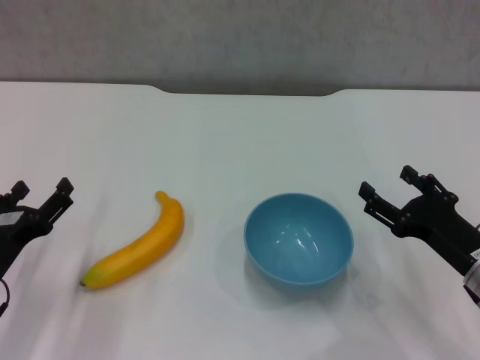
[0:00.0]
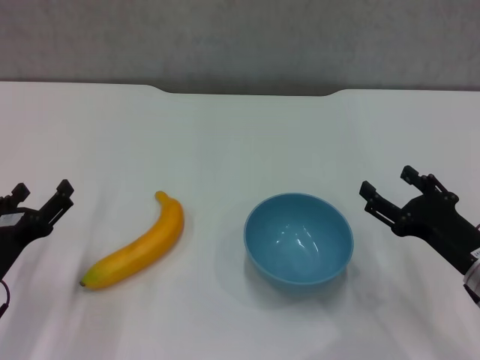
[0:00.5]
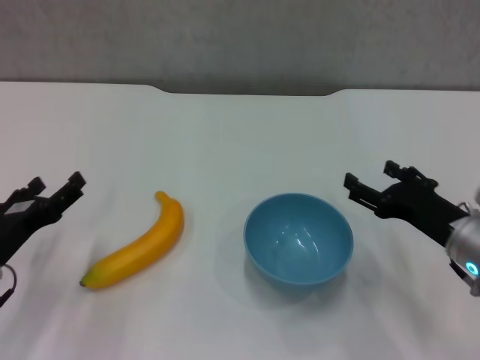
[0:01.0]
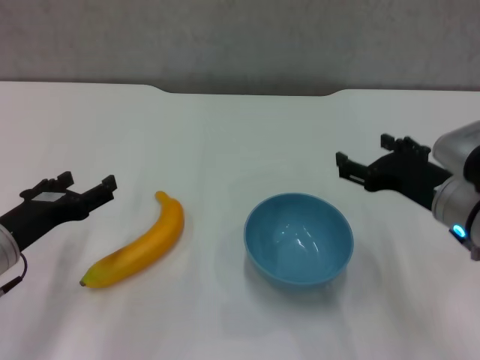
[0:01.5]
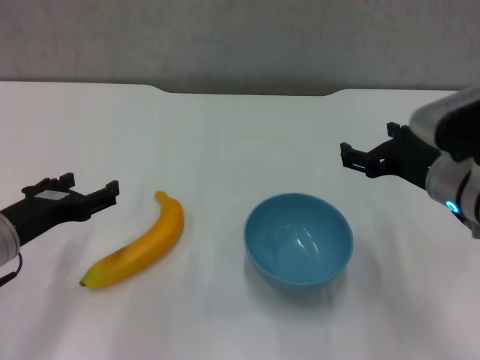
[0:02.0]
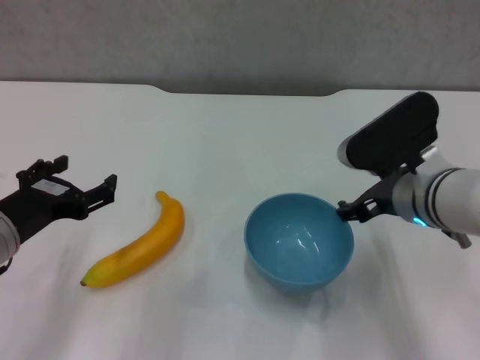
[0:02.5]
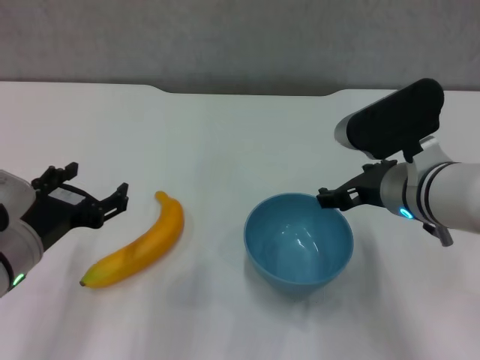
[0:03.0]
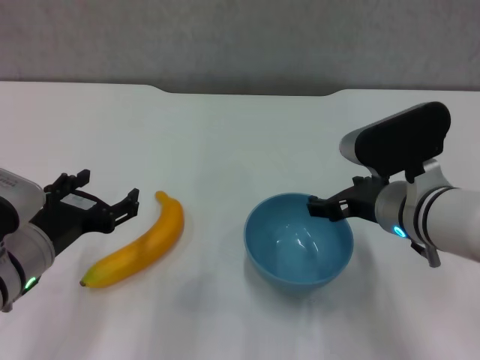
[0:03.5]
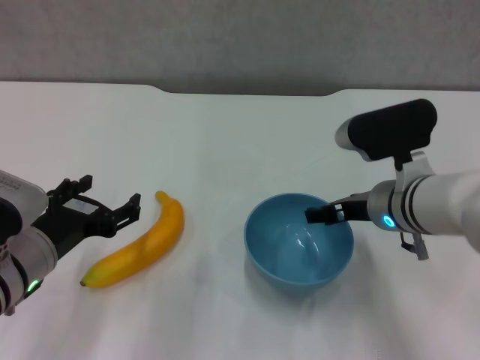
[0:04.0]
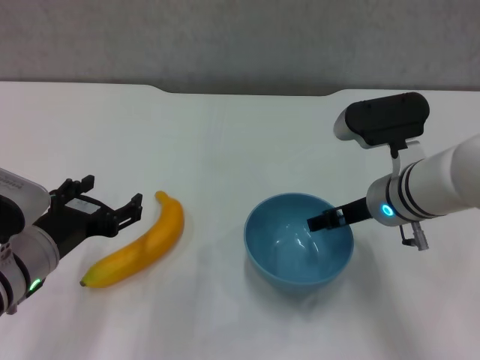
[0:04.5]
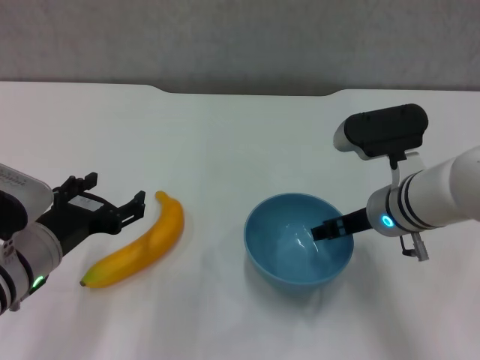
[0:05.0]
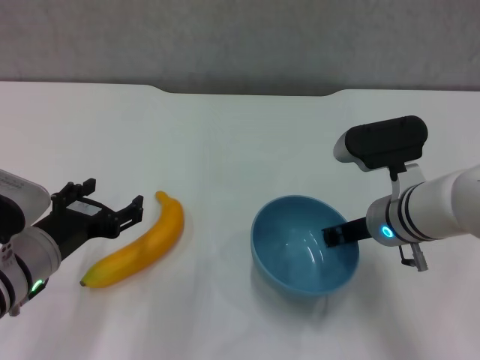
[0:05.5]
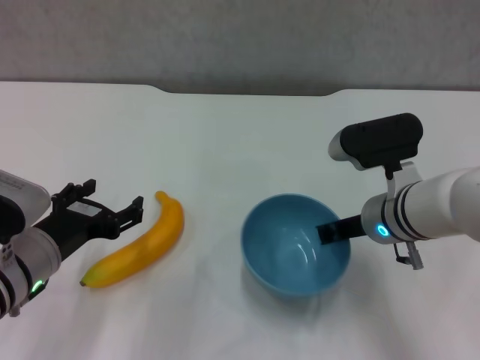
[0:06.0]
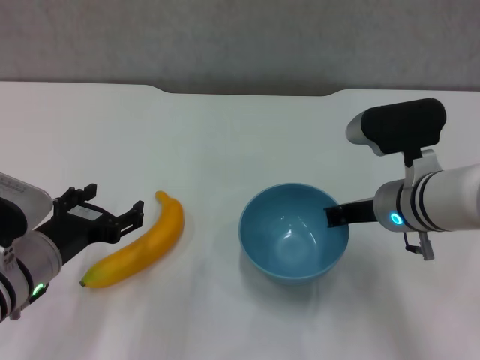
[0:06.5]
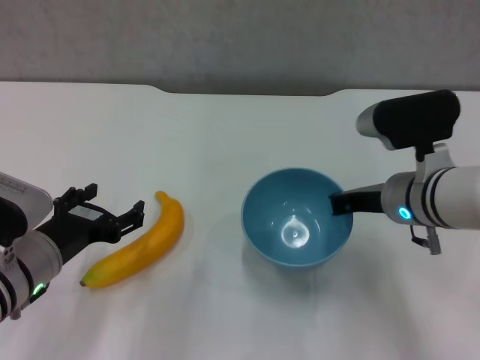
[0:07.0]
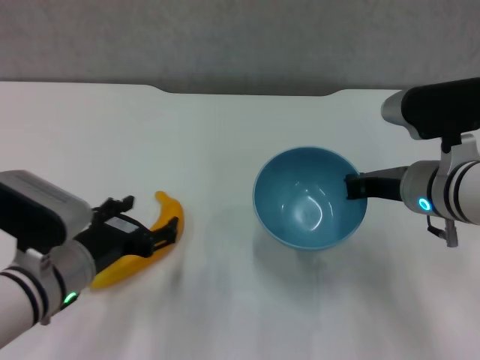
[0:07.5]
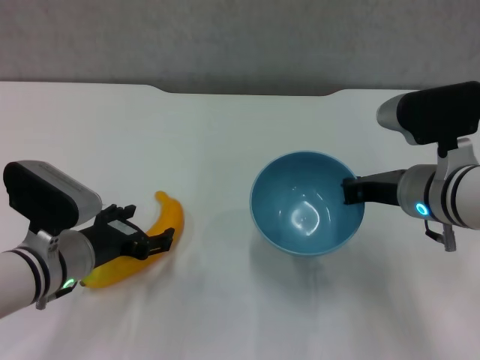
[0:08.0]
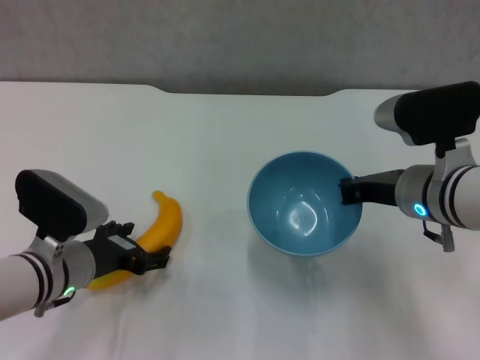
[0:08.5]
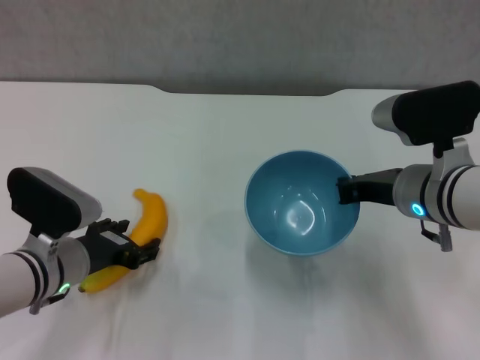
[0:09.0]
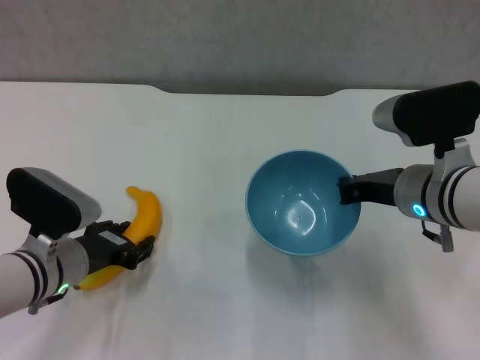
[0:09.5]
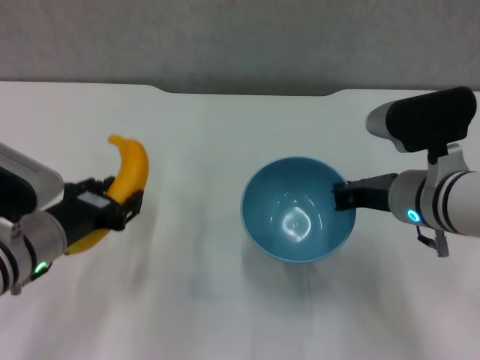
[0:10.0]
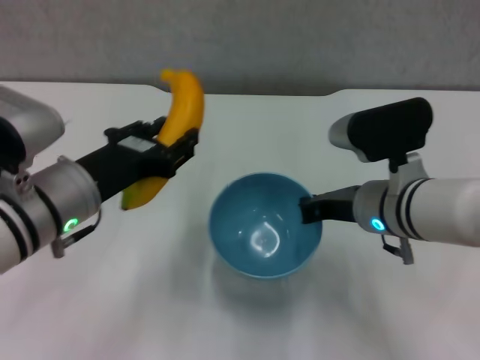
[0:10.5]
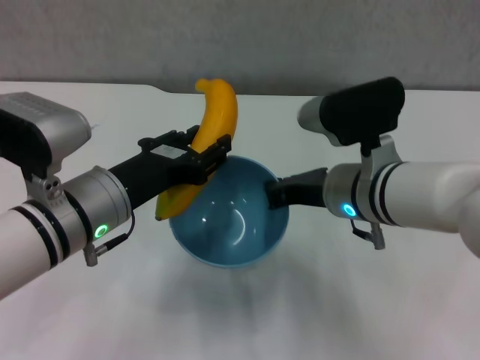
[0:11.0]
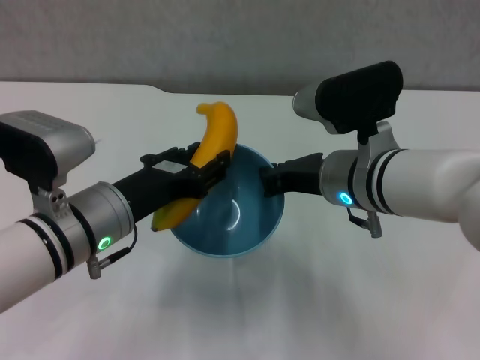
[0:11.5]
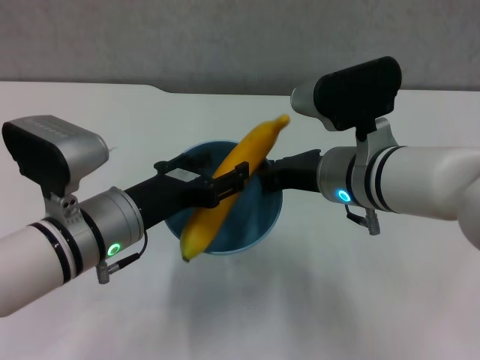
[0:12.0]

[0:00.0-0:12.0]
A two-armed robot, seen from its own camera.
Step, 0:00.0 to 0:06.0: Grasp the blue bowl with right gripper.
Step, 0:06.5 to 0:07.0: Lift the blue bowl with right gripper.
Step, 0:07.5 to 0:09.0: Grasp the banana with left gripper.
0:00.0 to 0:02.0: The left gripper travels upward by approximately 5 cm, while the right gripper moves upward, forward and to the left, roughly 10 cm.
0:02.0 to 0:04.0: The right gripper shifts by about 5 cm.
0:04.0 to 0:06.0: The right gripper closes up.
0:06.0 to 0:08.0: The right gripper moves about 5 cm.
0:08.0 to 0:10.0: The left gripper closes.
0:10.0 to 0:12.0: The right gripper travels to the left by roughly 5 cm; the left gripper goes roughly 5 cm to the right.

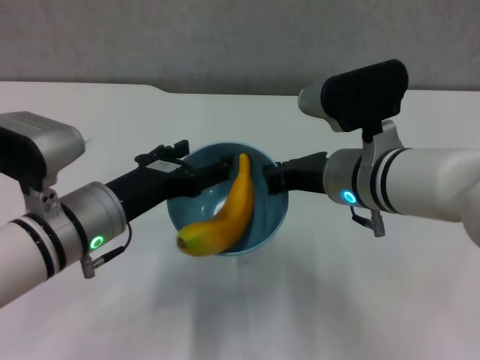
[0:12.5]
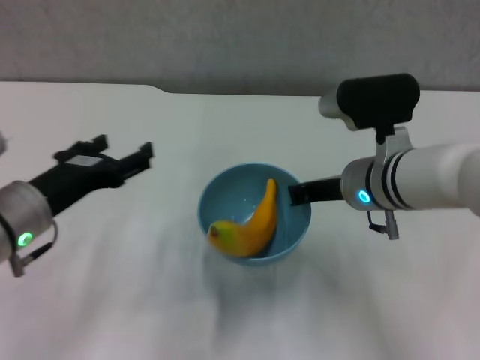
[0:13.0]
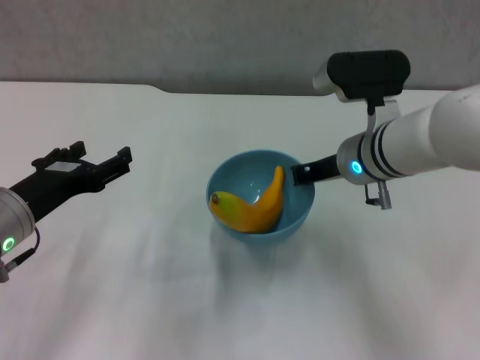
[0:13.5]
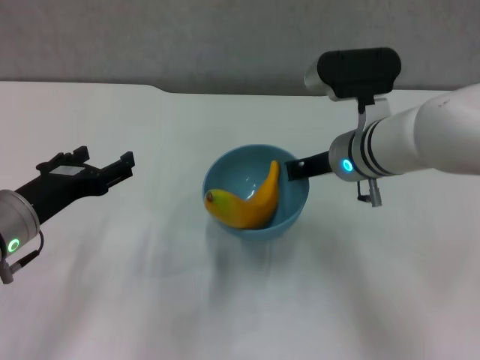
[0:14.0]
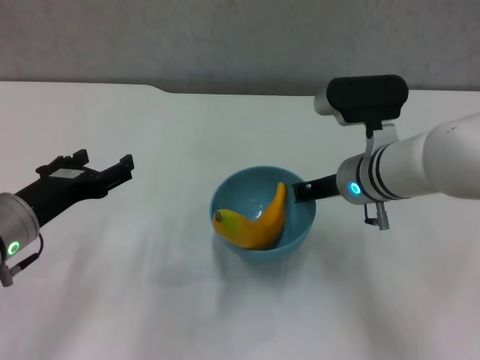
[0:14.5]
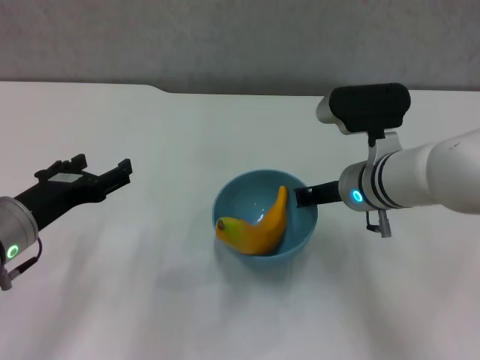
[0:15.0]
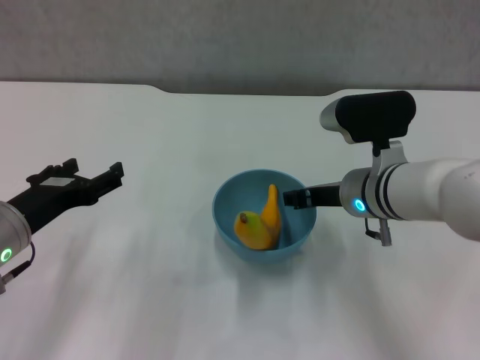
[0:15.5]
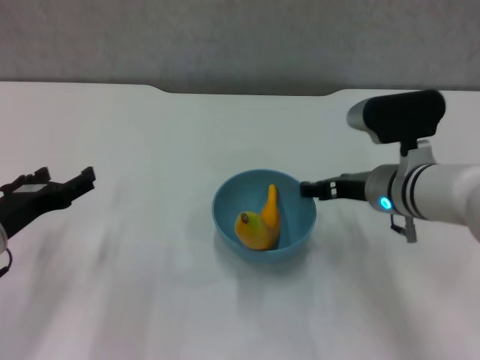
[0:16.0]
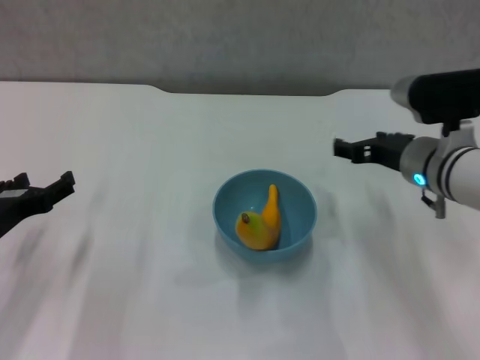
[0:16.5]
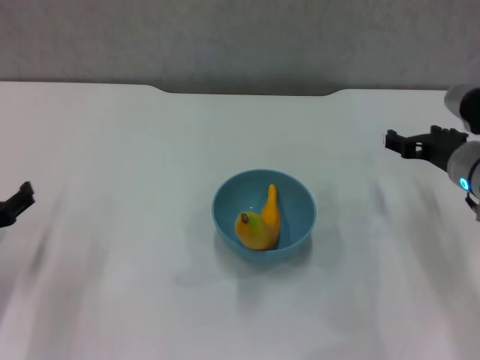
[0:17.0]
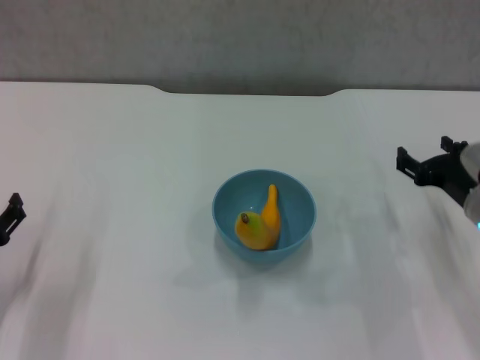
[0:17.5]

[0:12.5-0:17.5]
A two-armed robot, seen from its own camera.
Step, 0:12.5 to 0:15.5: Place the bowl on the table with right gripper.
0:12.5 to 0:15.0: The right gripper changes place by approximately 5 cm. Meanwhile the left gripper is displaced to the left by about 10 cm.
0:15.0 to 0:17.5: The left gripper shifts some 10 cm downward and to the left; the right gripper heads to the right, covering some 15 cm, and opens its fingers.

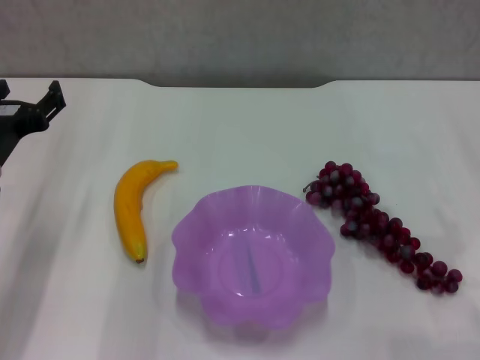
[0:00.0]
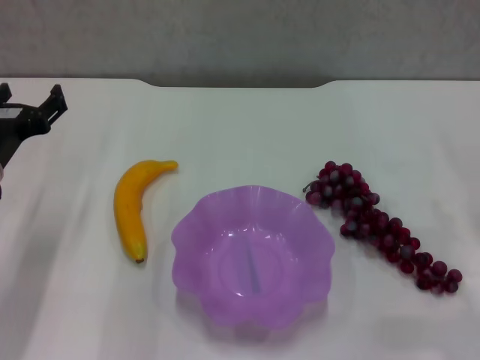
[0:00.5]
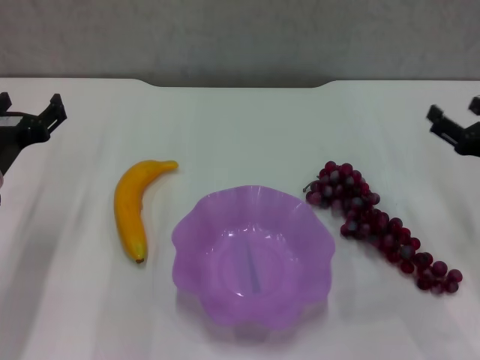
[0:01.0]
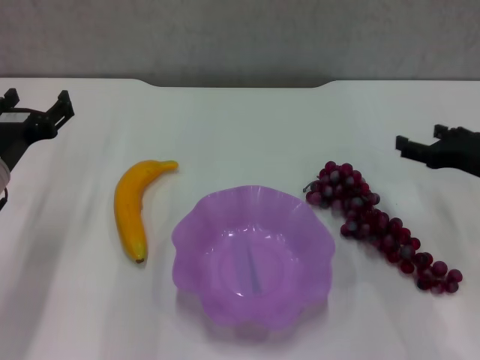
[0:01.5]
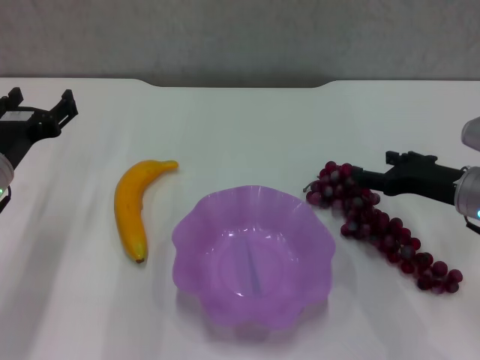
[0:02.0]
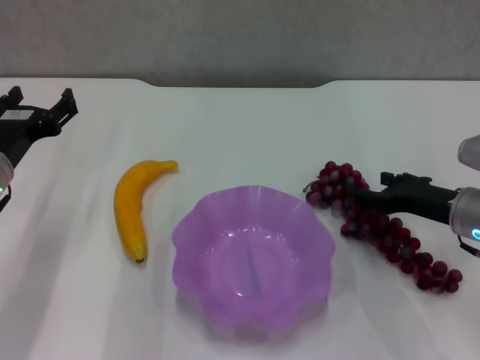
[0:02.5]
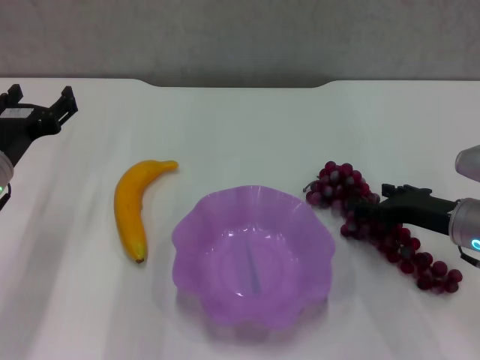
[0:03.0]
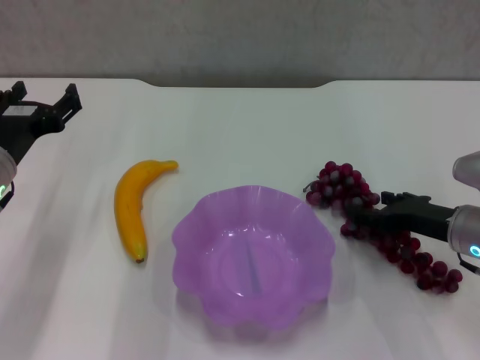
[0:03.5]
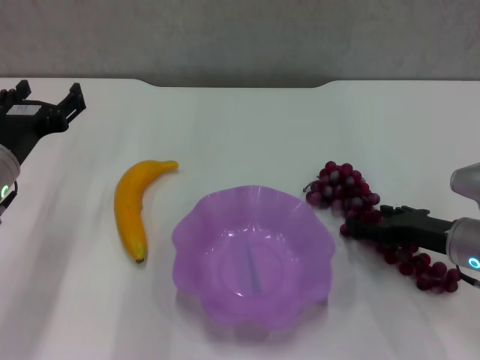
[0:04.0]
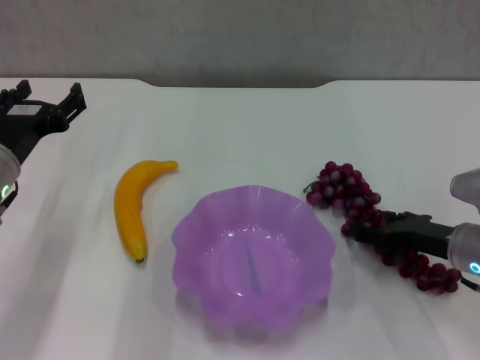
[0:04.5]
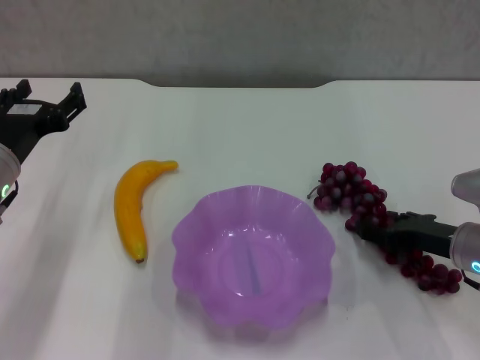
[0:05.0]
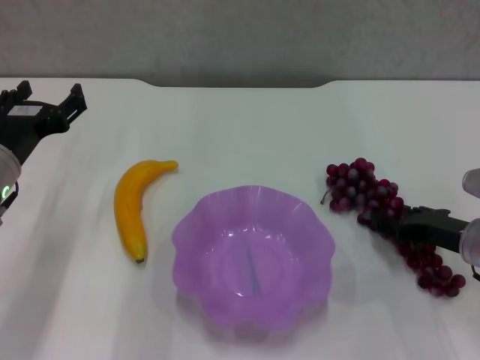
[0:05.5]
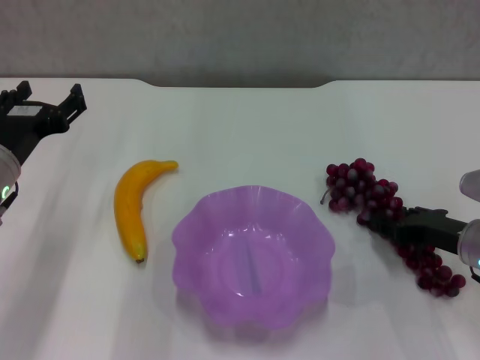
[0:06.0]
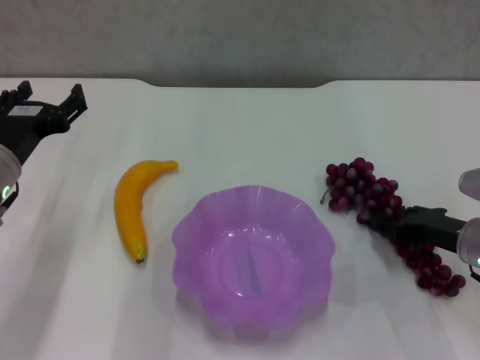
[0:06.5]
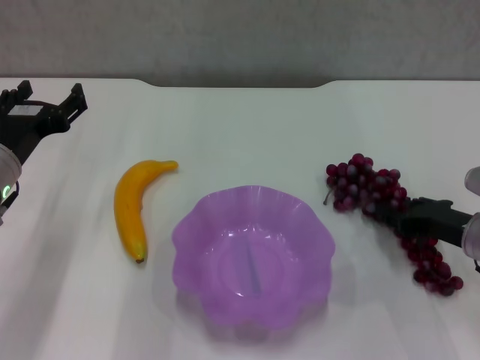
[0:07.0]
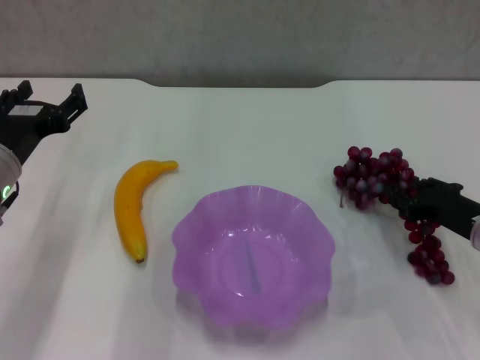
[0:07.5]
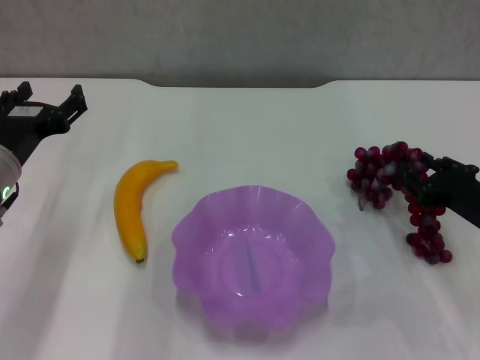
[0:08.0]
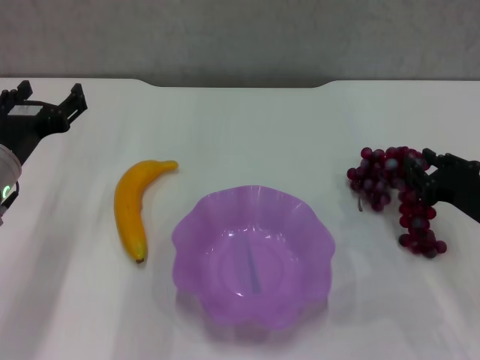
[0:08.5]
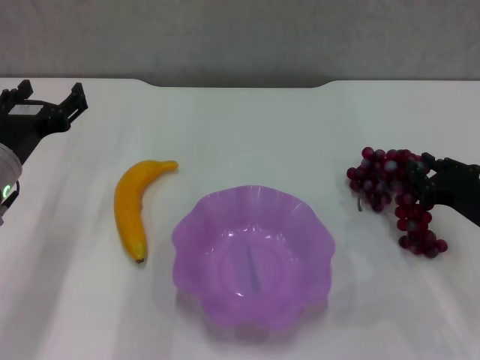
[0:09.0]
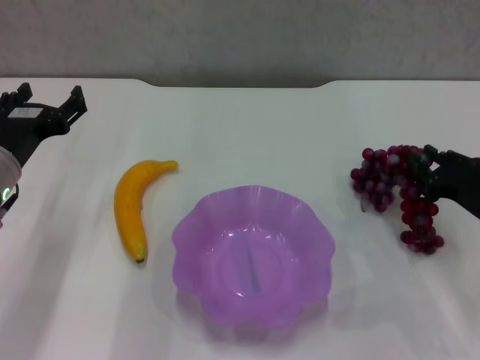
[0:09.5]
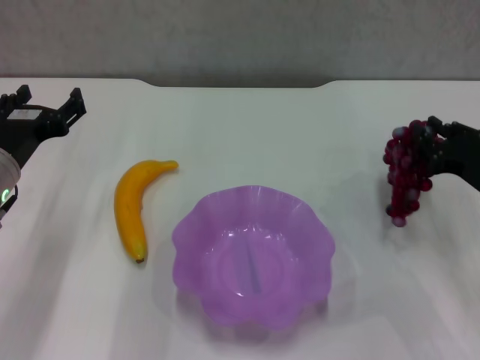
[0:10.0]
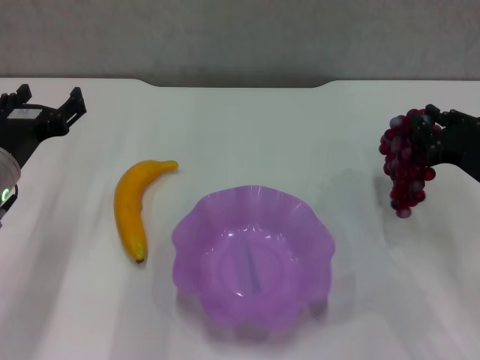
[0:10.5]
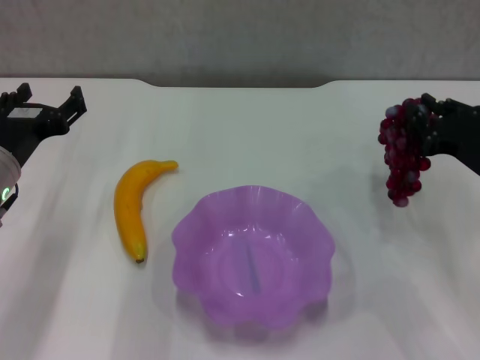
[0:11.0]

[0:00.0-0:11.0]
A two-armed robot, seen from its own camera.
Step, 0:00.0 to 0:06.0: Grasp the grape with right gripper.
0:00.0 to 0:02.0: The right gripper is displaced to the left and forward by some 10 cm.
0:02.0 to 0:09.0: The grippers make only small movements.
0:09.0 to 0:11.0: The grippers make only small movements.
